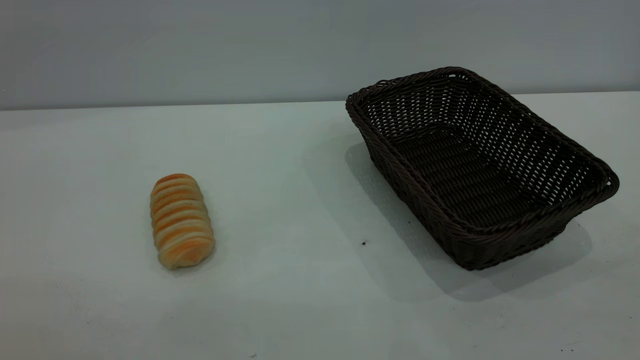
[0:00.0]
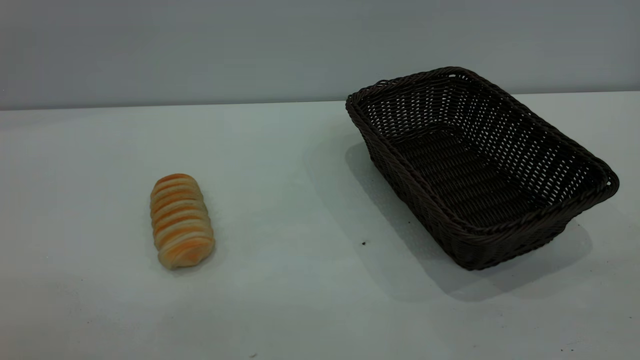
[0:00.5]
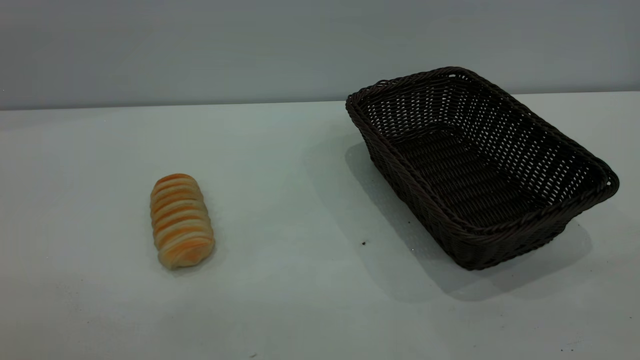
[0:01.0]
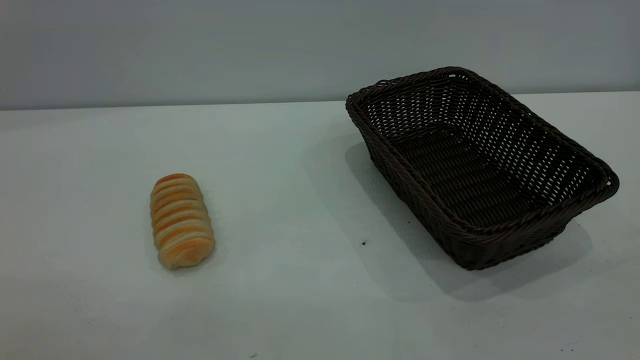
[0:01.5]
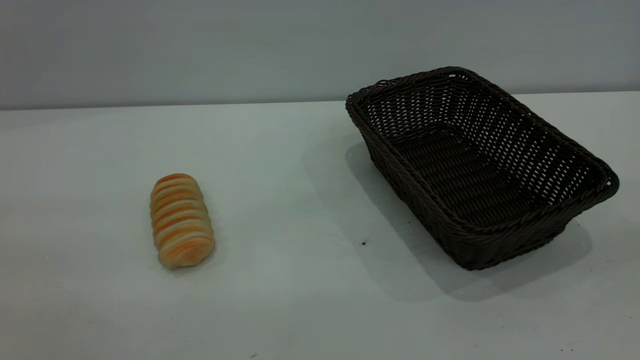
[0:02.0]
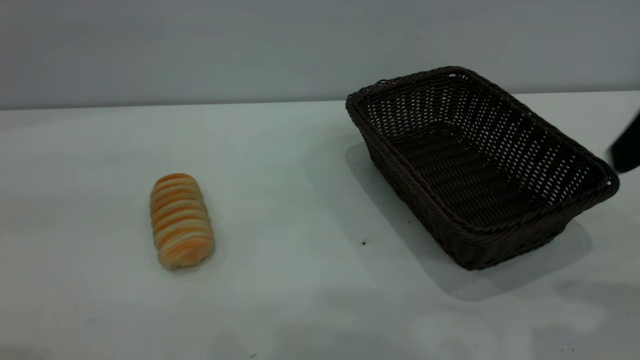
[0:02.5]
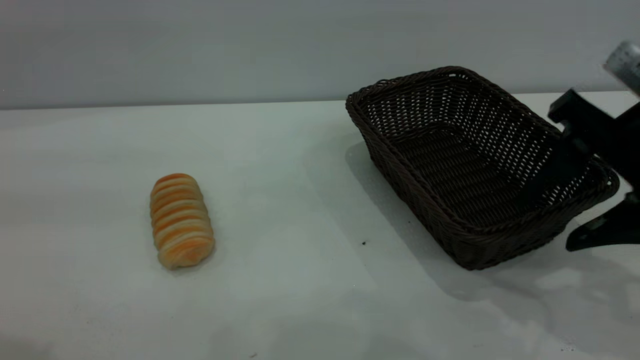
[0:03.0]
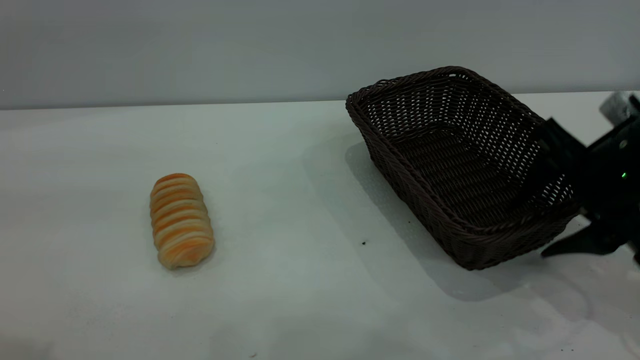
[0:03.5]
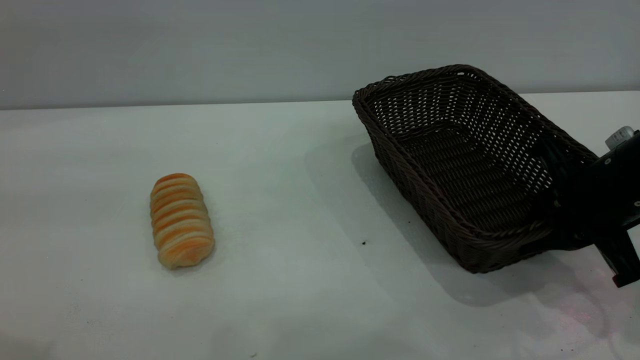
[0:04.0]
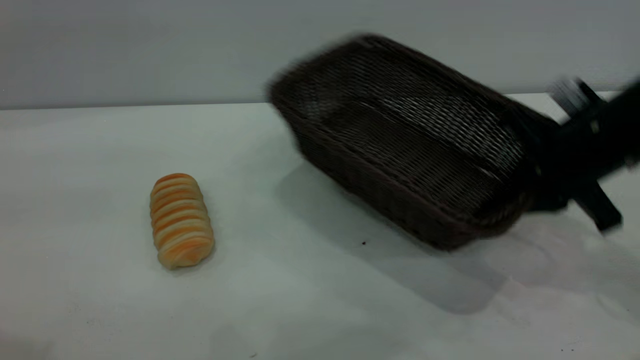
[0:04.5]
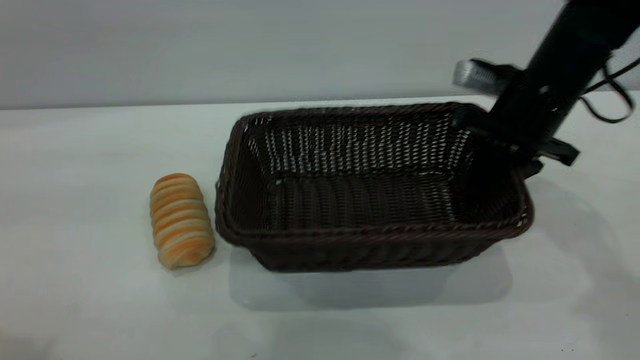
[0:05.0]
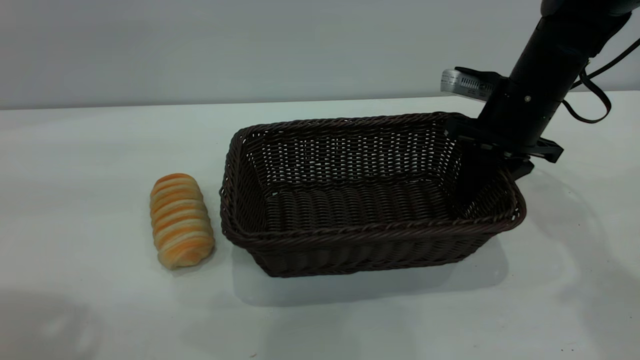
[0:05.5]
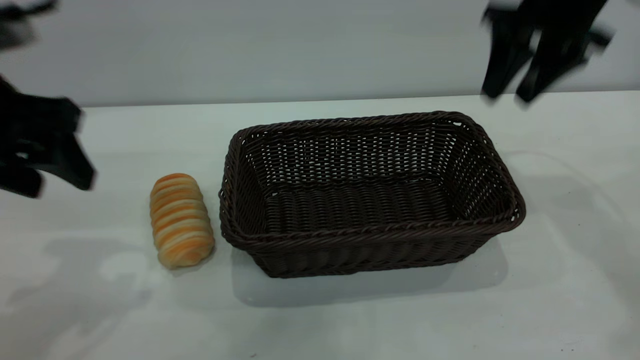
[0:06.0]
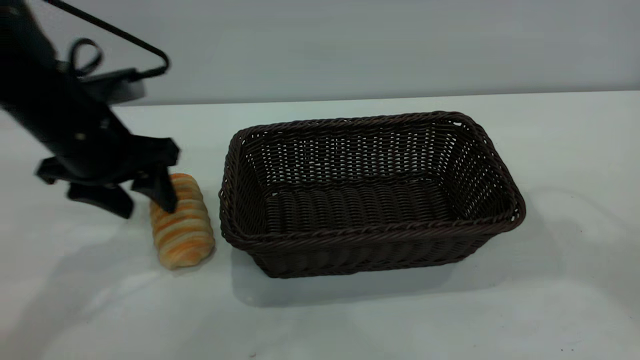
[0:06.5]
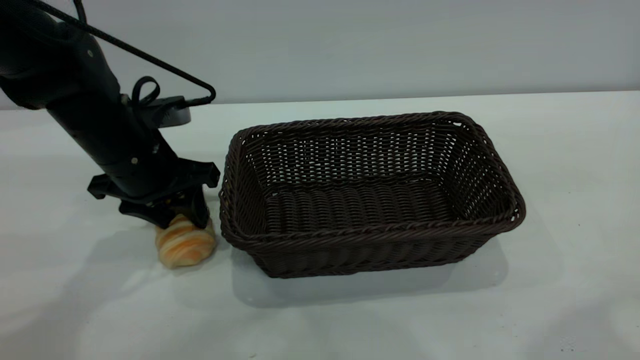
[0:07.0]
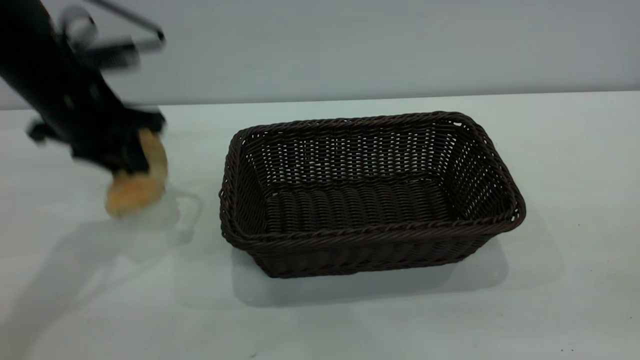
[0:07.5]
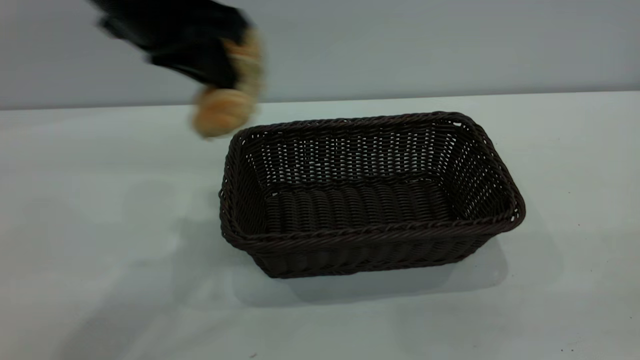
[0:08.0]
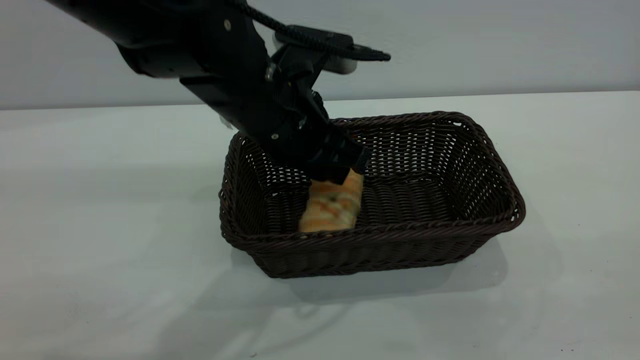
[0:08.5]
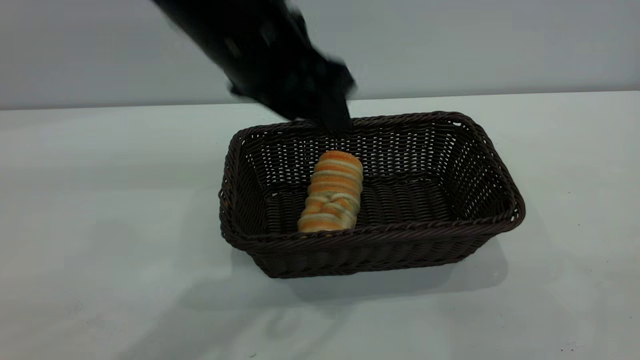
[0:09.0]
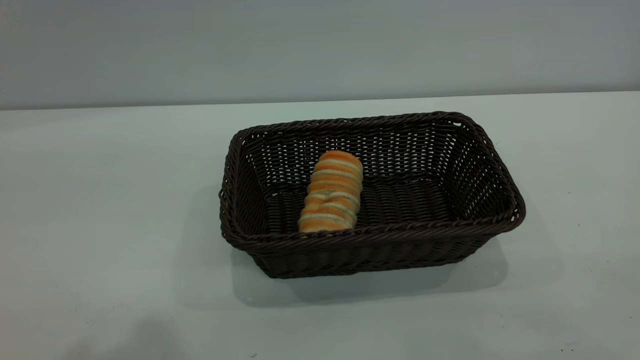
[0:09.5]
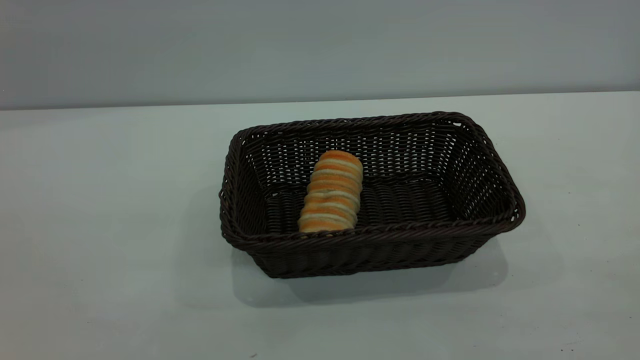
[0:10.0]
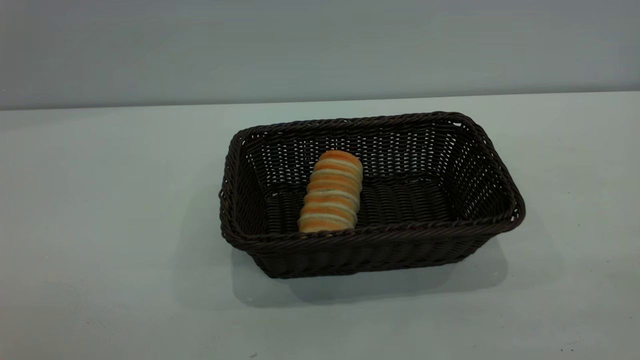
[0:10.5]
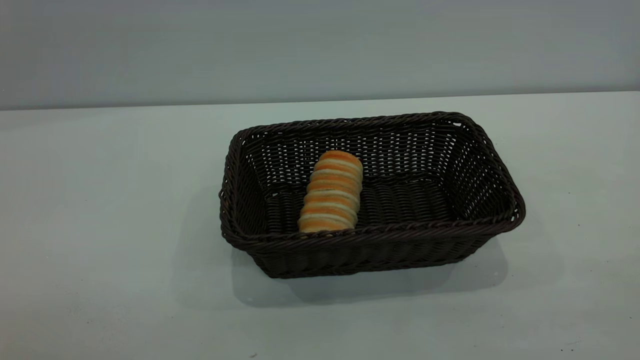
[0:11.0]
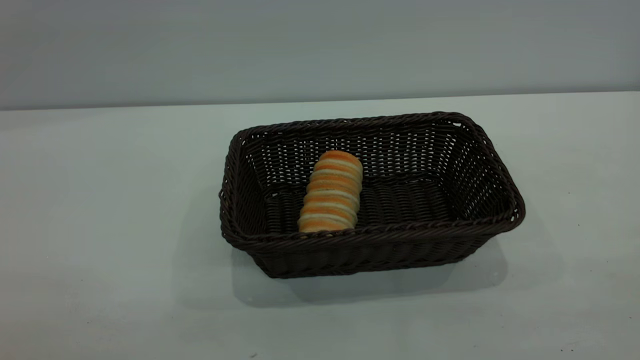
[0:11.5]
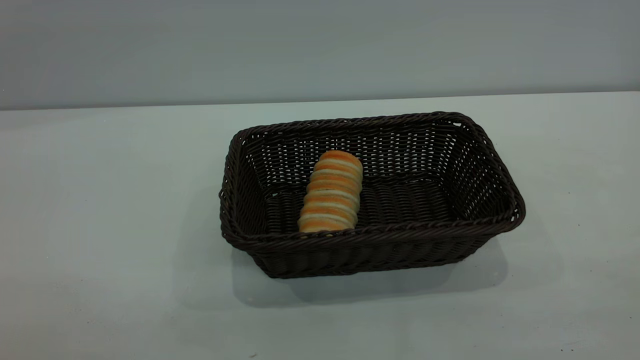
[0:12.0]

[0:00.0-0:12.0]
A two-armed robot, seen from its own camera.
Task of the whole recording: One hand grasps the black basket and places it in the middle of the table, while the other hand picks up the long bread and puts it into the black basket.
Step, 0:00.0 to 0:05.5: Move the basket to the center of view.
Step, 0:08.0 to 0:09.0: place the bread into the basket.
0:02.0 to 0:04.0: The right gripper heads downward and forward, covering approximately 35 cm, and closes up.
0:04.0 to 0:06.0: The right gripper heads upward and forward, covering roughly 20 cm, and opens, while the left gripper heads downward and forward, covering about 20 cm.
0:06.0 to 0:08.0: The left gripper is displaced to the right by approximately 15 cm, reaches approximately 10 cm downward, then returns, and closes, while the right gripper shifts approximately 40 cm backward.
0:08.0 to 0:10.0: The left gripper moves backward, to the left and upward, approximately 30 cm, and opens up.

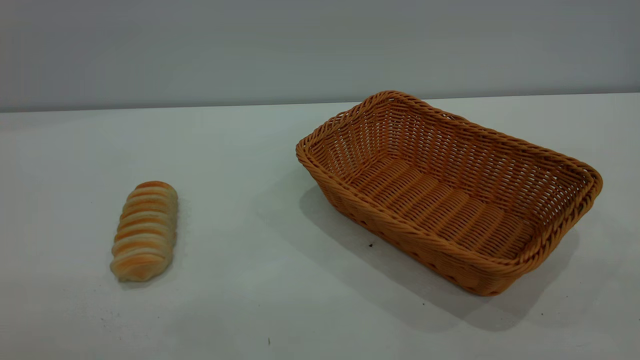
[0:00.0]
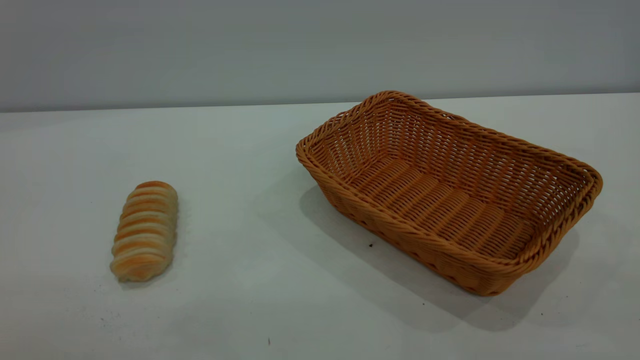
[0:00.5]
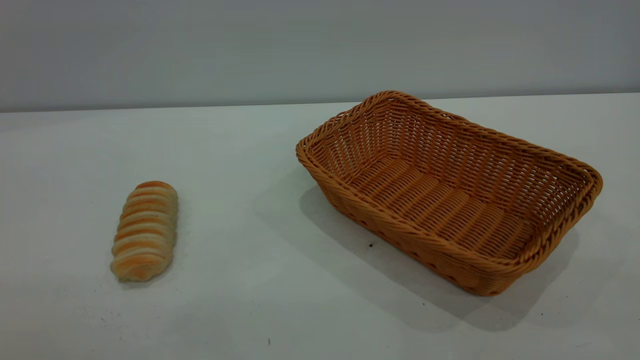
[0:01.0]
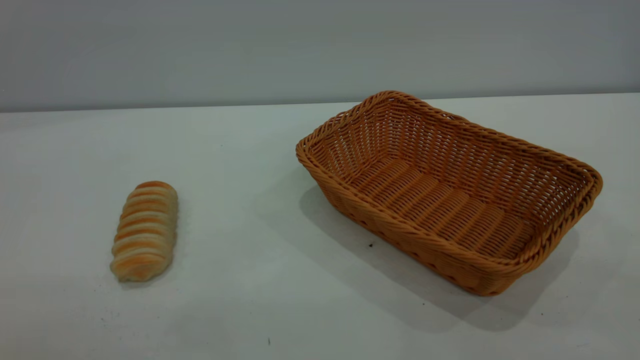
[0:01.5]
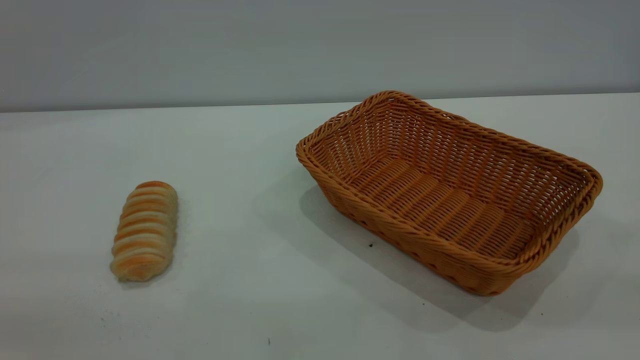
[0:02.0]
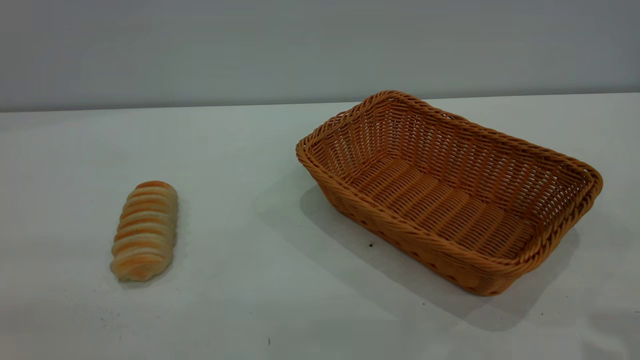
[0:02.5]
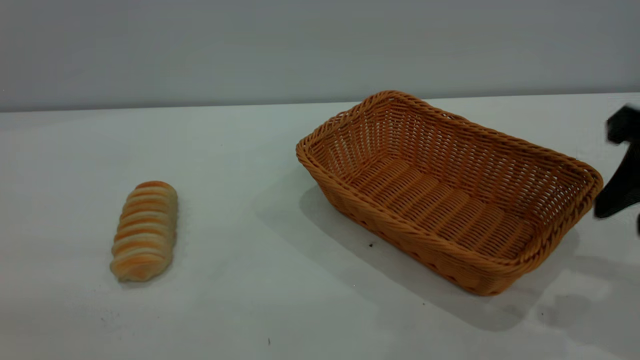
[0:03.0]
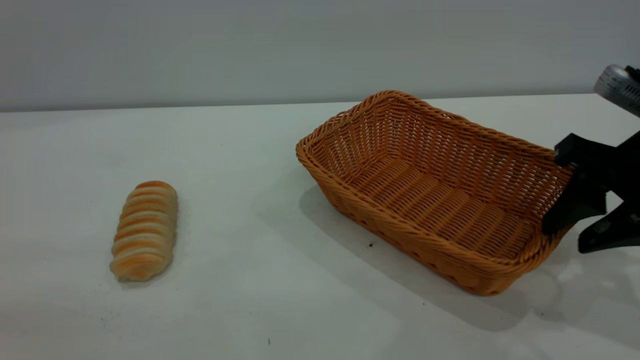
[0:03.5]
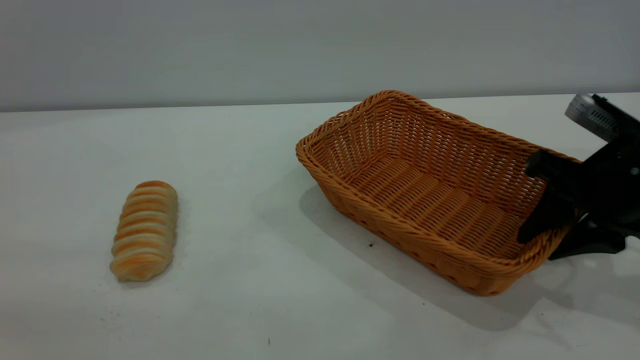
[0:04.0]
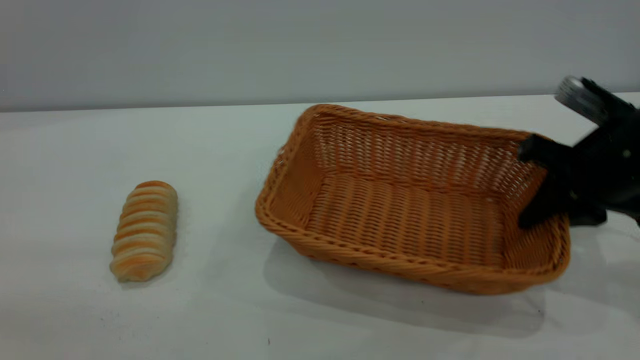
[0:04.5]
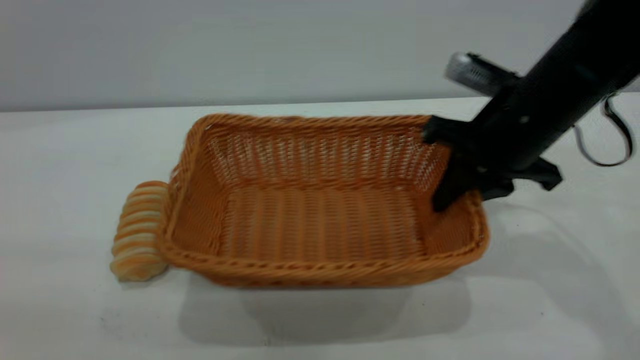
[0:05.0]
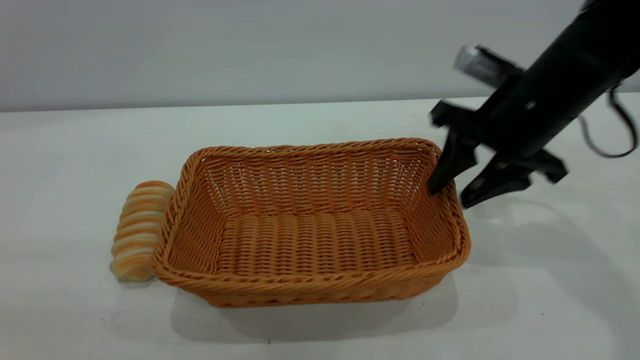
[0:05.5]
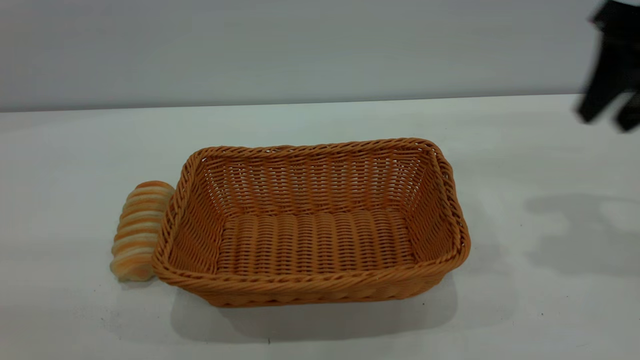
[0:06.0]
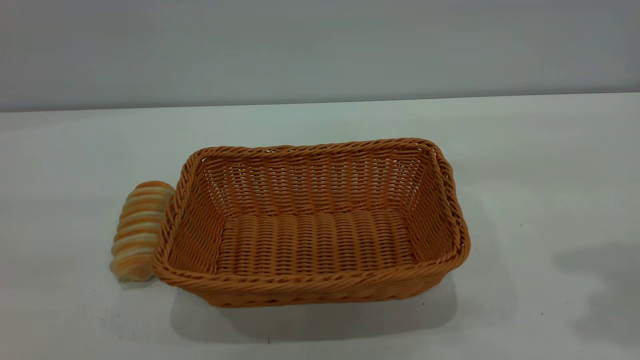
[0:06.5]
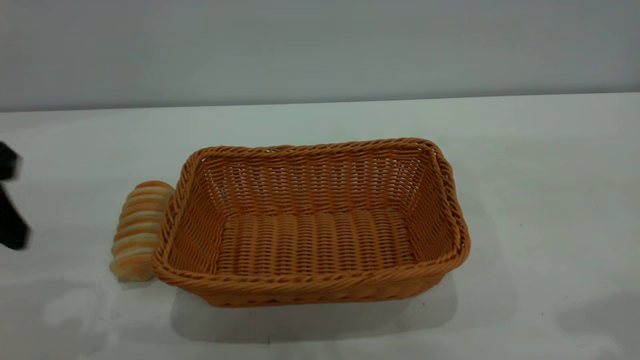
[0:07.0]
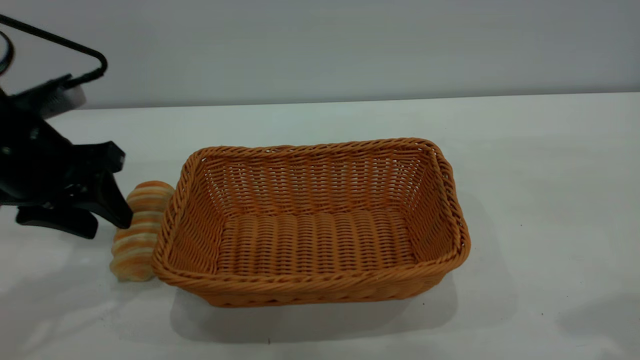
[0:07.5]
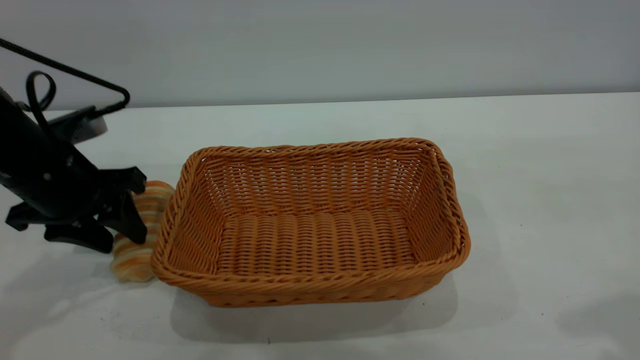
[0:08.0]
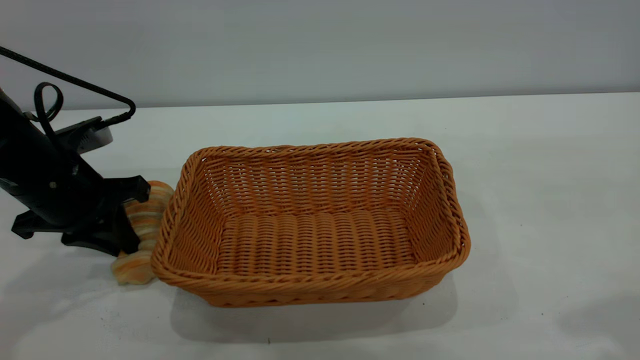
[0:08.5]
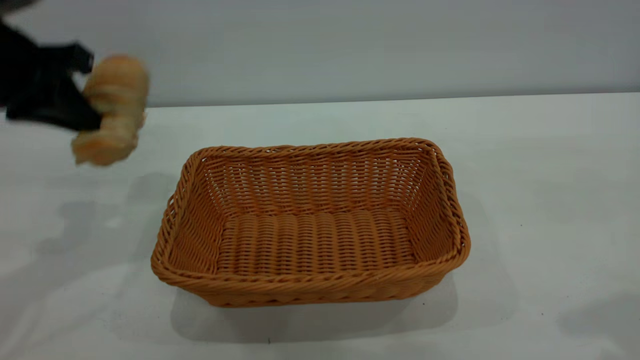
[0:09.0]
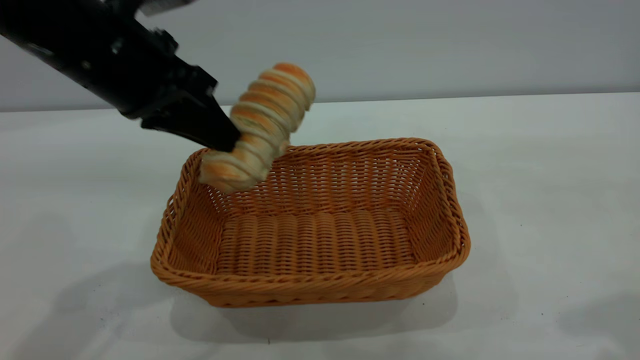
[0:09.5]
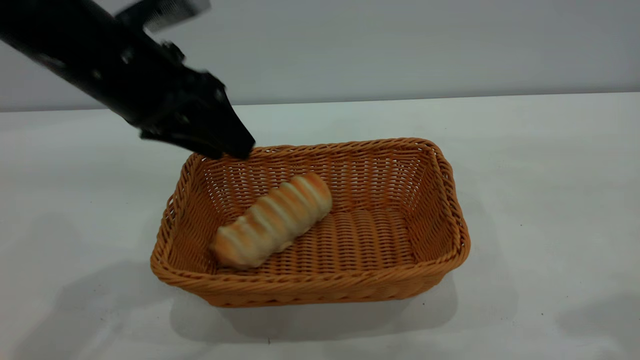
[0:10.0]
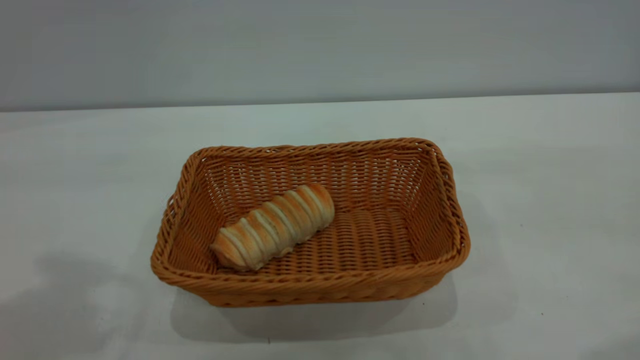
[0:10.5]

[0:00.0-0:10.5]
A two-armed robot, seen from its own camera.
Task of the whole recording: One hand grasps the yellow basket and places it in the middle of the table, while the other hand picks up the long bread and puts it into the yellow basket.
Step, 0:00.0 to 0:05.5: Move the basket to the center of view.
Step, 0:09.0 to 0:10.0: place the bread into the basket.
0:02.0 to 0:04.0: The right gripper moves forward and downward, roughly 35 cm.
0:04.0 to 0:06.5: The left gripper heads forward, covering approximately 10 cm. The right gripper shifts some 25 cm upward, and closes and opens again.
0:06.5 to 0:08.5: The left gripper goes some 30 cm downward and forward, and closes up. The right gripper moves backward, approximately 5 cm.
0:08.5 to 0:10.5: The left gripper is displaced upward by roughly 30 cm, and opens up.
